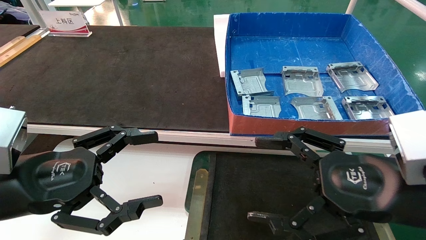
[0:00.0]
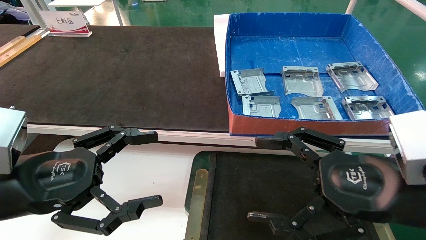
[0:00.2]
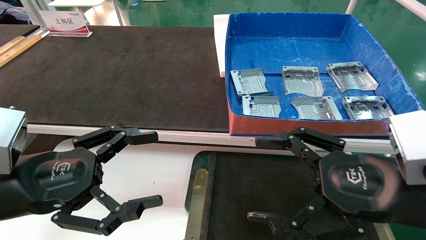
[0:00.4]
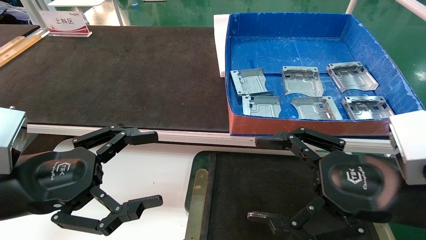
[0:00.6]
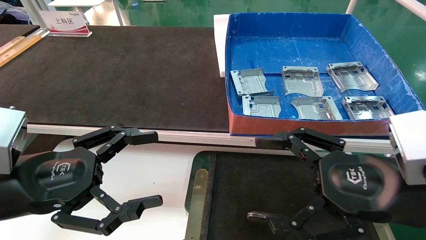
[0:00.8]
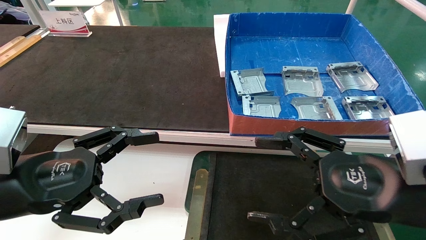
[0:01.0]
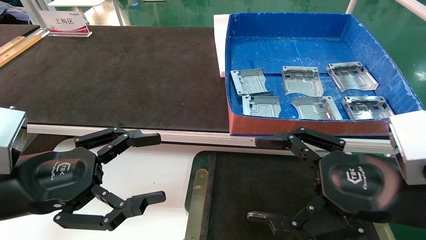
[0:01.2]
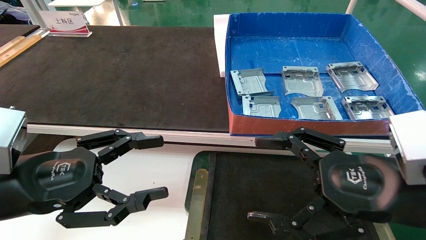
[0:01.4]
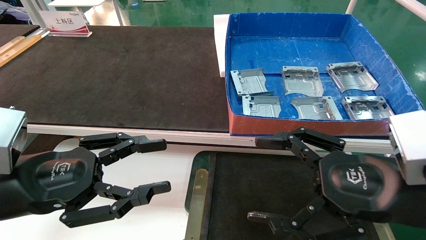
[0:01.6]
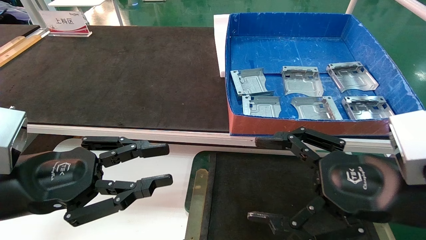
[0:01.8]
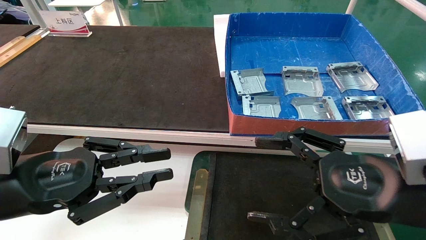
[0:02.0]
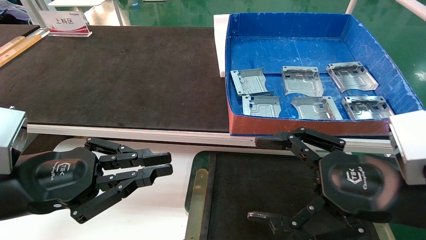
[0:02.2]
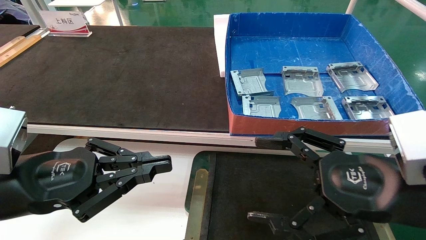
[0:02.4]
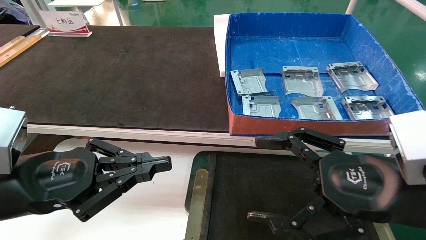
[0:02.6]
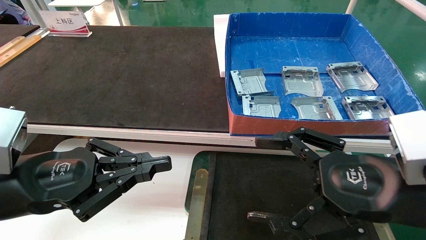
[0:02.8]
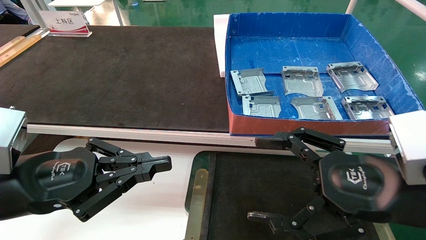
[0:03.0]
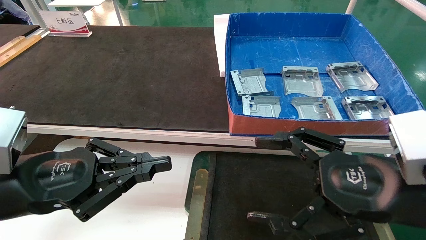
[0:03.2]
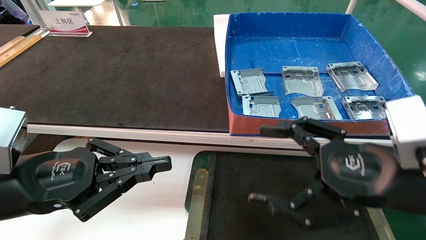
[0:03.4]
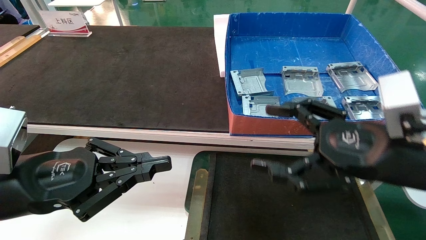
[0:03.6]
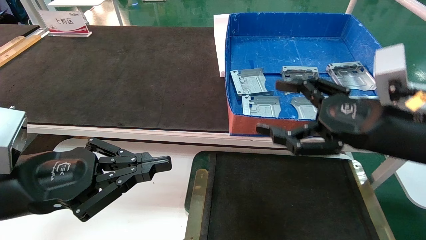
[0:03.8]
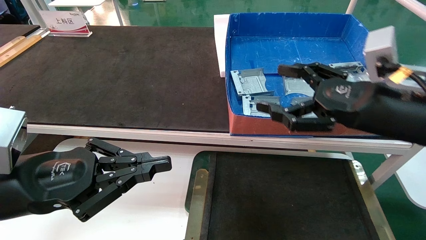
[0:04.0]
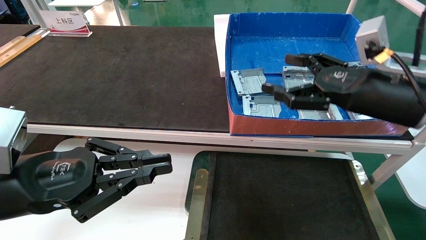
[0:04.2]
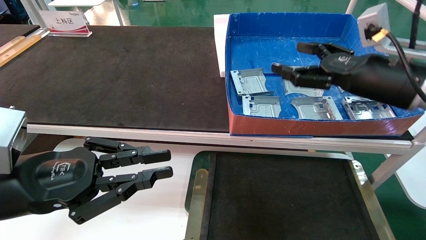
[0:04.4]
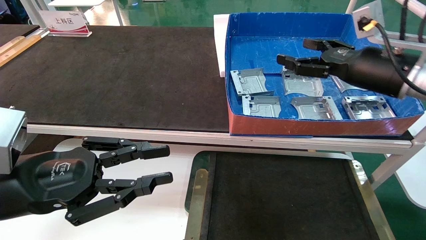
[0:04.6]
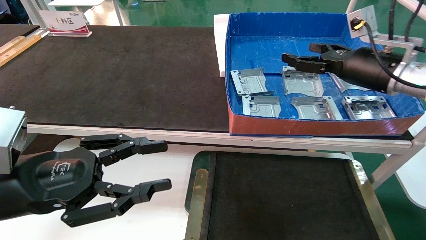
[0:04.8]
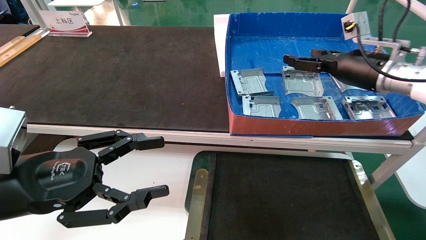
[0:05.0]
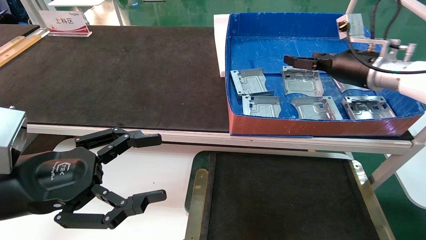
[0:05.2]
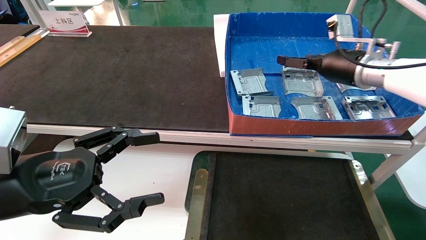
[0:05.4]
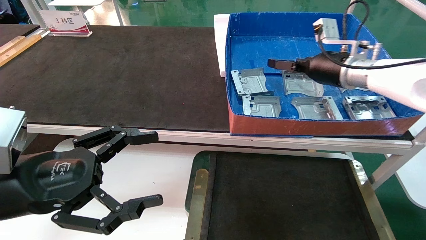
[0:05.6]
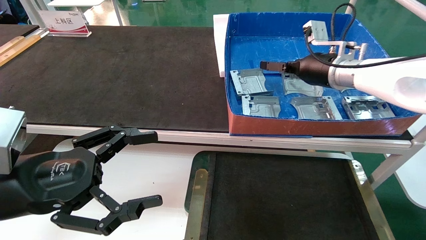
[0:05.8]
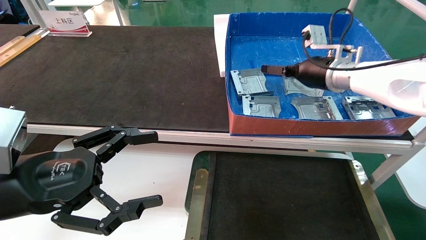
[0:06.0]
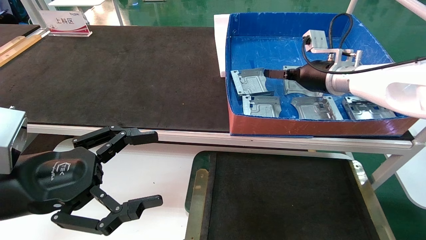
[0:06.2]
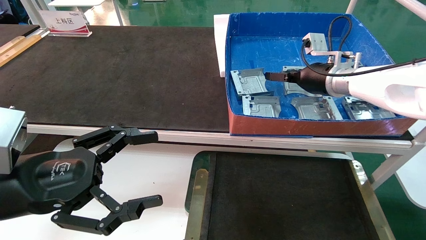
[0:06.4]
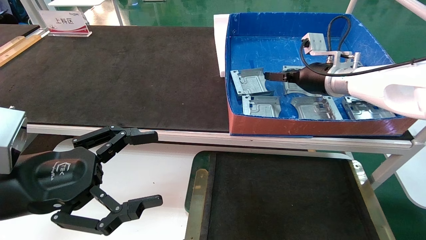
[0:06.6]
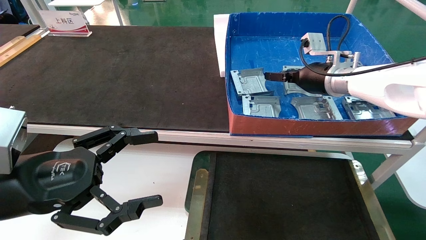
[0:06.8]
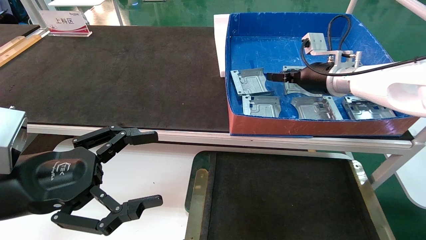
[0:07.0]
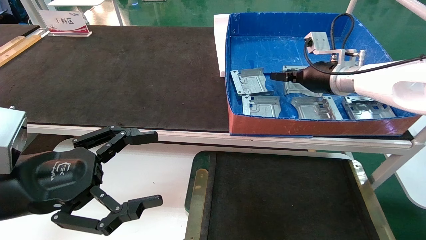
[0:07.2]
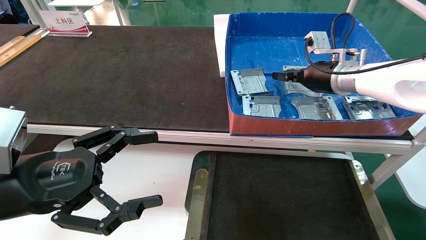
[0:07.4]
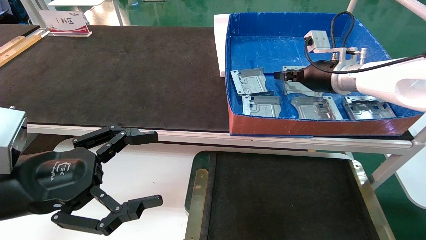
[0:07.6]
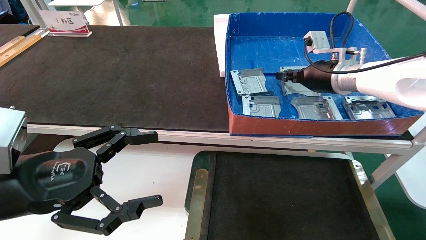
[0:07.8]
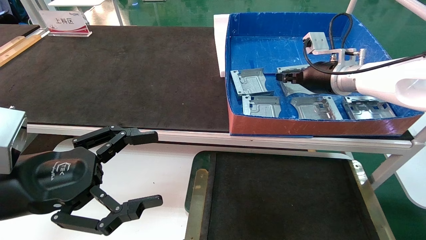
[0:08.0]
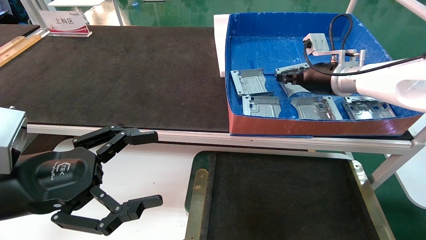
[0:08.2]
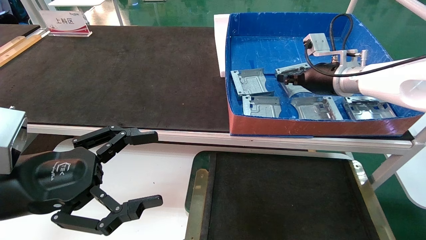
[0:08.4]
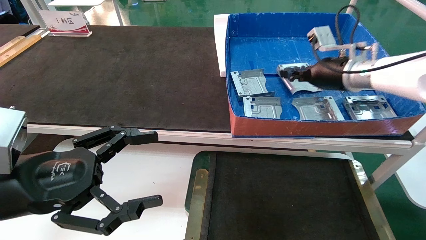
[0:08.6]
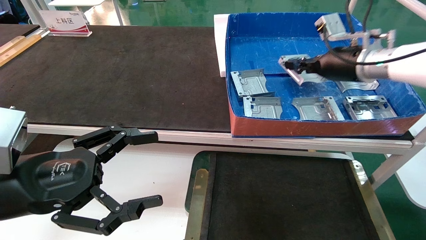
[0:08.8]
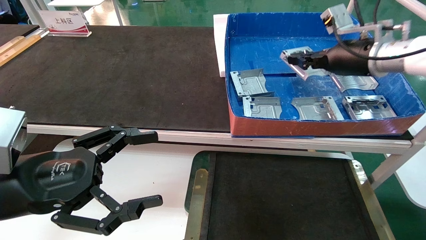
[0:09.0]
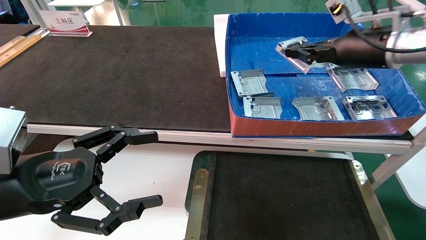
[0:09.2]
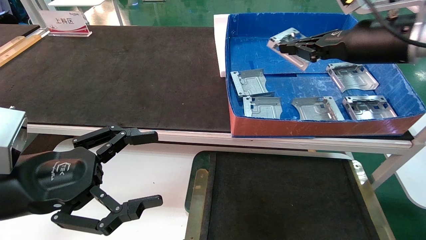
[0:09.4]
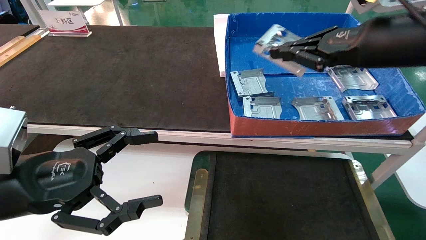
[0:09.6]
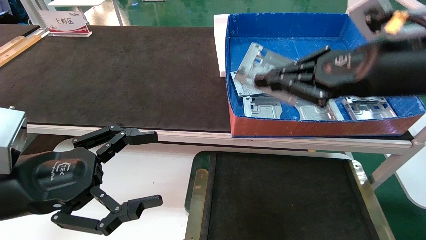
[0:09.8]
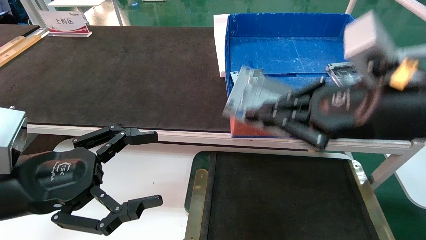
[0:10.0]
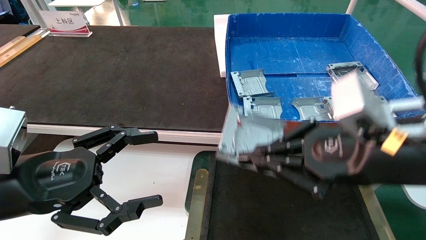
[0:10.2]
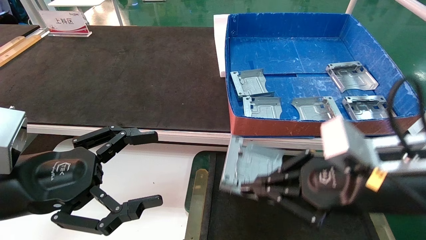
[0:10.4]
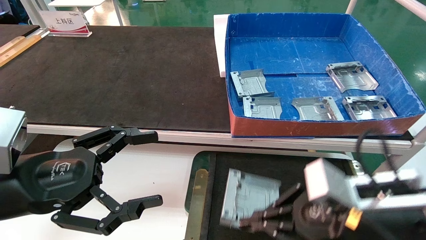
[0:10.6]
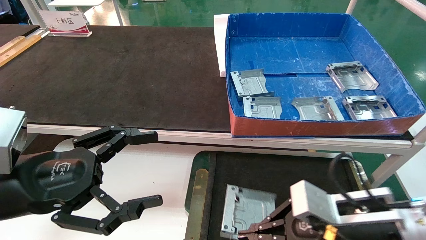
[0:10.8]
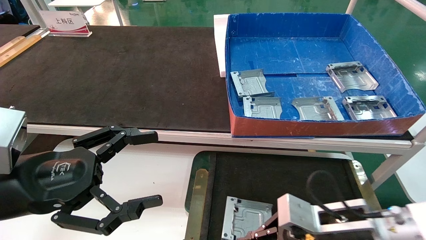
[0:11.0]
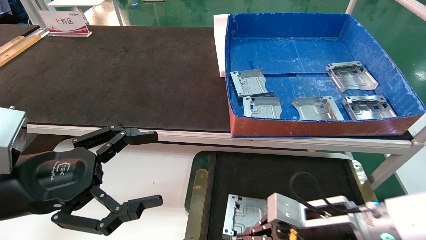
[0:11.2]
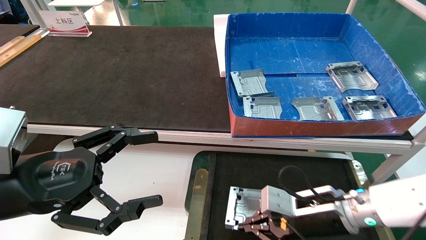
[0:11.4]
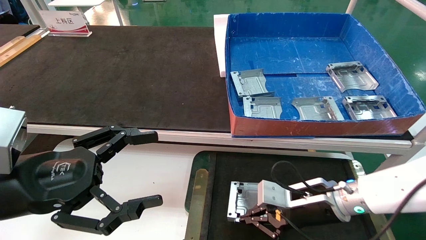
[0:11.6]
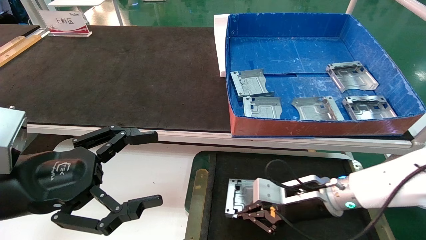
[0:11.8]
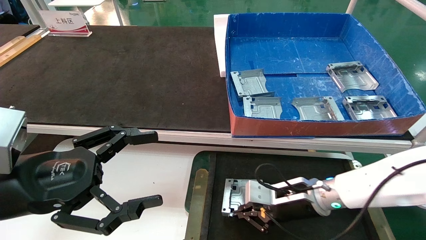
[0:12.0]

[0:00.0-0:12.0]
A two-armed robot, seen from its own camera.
Task of the whole recording: pick up parts and place them into a black container.
Step, 0:03.8 to 0:08.0: Pick up the hard drive bracket from the feeding area.
0:00.0 to 0:01.6: The left gripper closes up.
0:01.6 to 0:03.0: The left gripper closes its fingers.
0:03.0 to 0:04.4: The right gripper shifts some 15 cm forward and upward.
0:04.4 to 0:06.0: The right gripper goes roughly 15 cm forward, while the left gripper opens up.
0:06.0 to 0:07.6: The right gripper closes.
0:07.6 to 0:09.0: The right gripper is displaced upward and backward by roughly 5 cm.
0:09.0 to 0:10.4: The right gripper is displaced backward and downward by some 25 cm.
0:10.4 to 0:12.0: The right gripper moves downward and forward, about 20 cm.

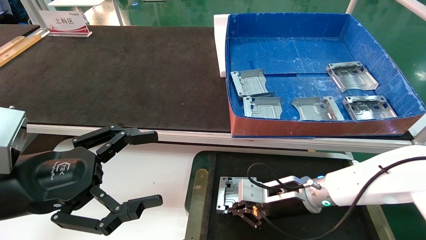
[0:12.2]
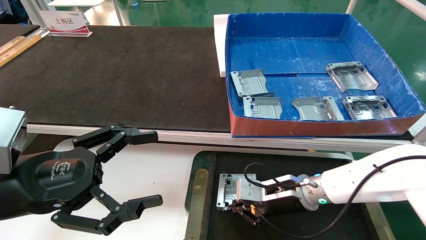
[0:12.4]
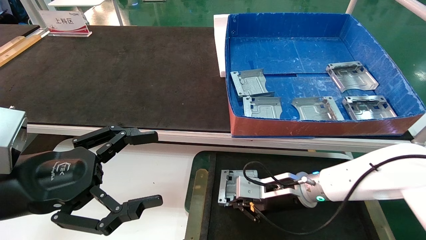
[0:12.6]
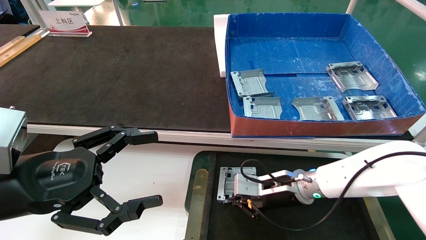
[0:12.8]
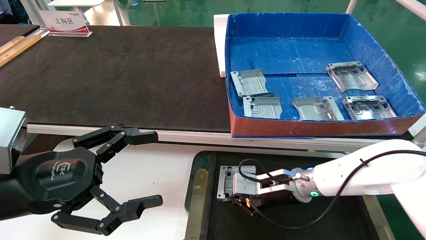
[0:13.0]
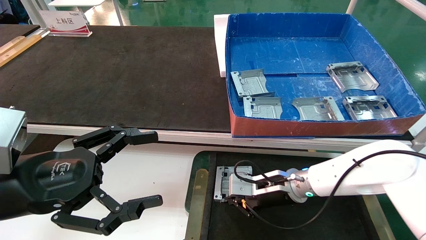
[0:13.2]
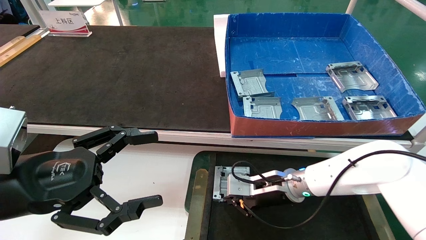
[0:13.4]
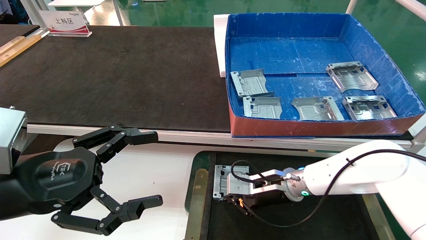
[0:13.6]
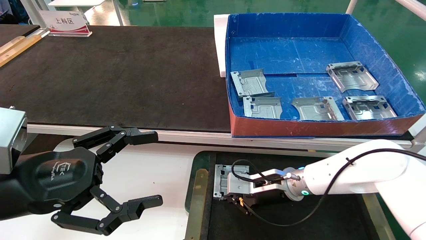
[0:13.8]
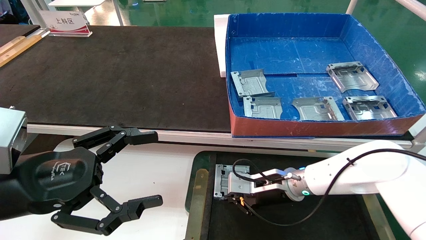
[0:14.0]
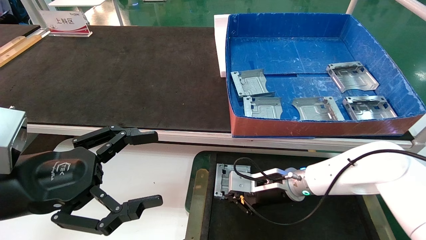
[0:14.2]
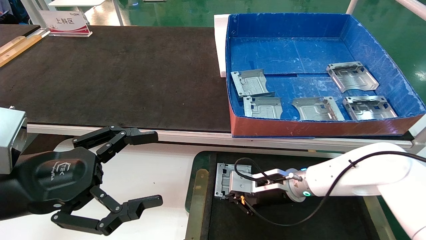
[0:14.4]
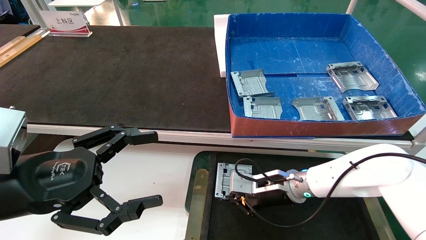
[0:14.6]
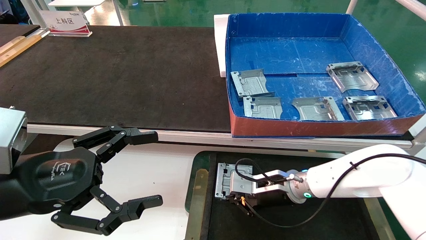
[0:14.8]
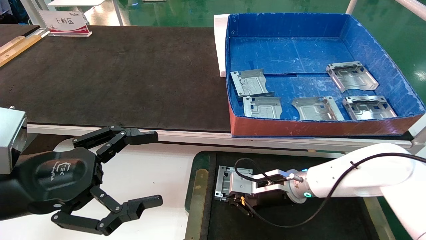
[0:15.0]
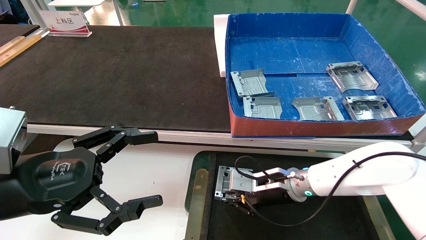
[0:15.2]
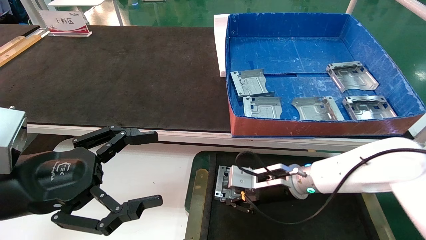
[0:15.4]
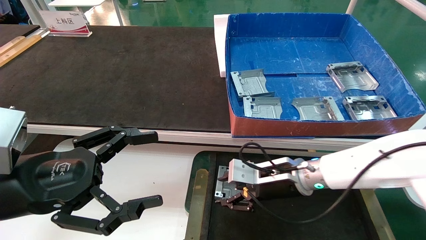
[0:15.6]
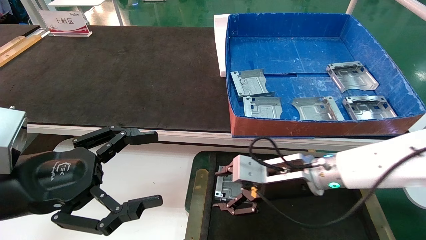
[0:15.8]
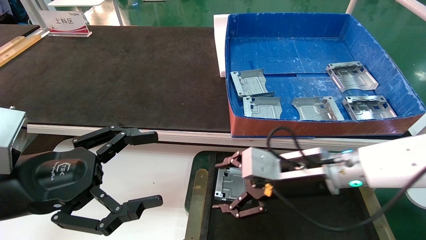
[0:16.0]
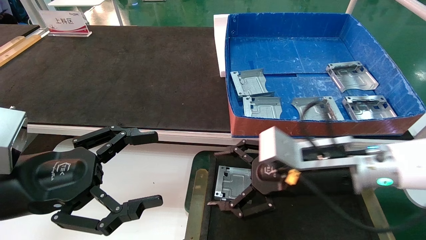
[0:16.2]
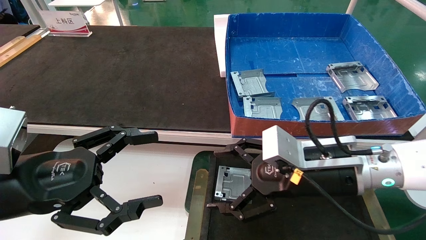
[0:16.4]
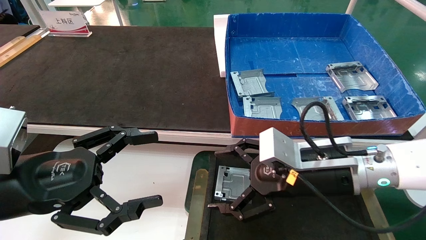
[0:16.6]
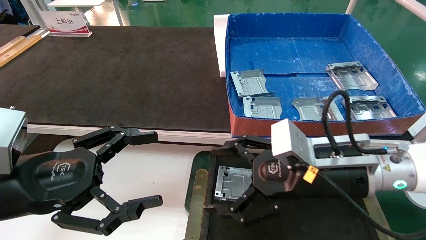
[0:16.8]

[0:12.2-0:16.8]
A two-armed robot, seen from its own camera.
Task of the whole recording: pick up parts and place them into a black container.
Step, 0:12.2 to 0:15.2: Place the hard drive bracket into the box.
0:12.2 to 0:13.8: The grippers stay close to where they were, moving slightly.
0:13.8 to 0:15.2: The two grippers keep their place.
0:15.2 to 0:16.8: The right gripper shifts some 15 cm backward and upward, and opens its fingers.
